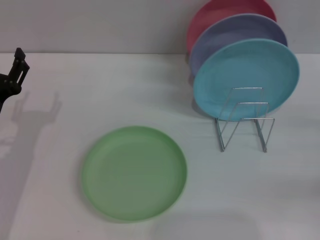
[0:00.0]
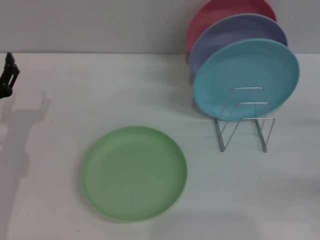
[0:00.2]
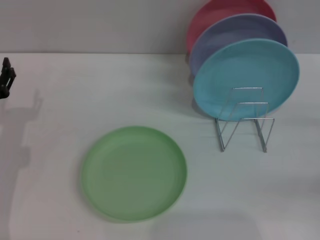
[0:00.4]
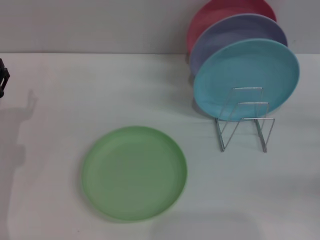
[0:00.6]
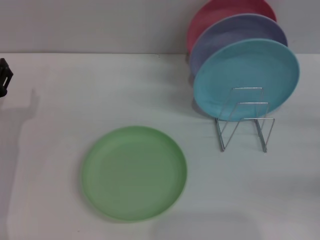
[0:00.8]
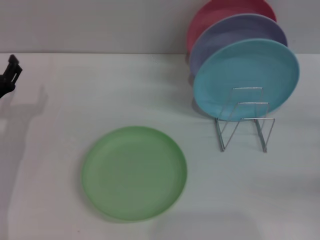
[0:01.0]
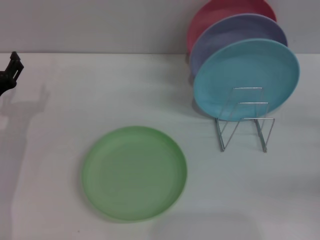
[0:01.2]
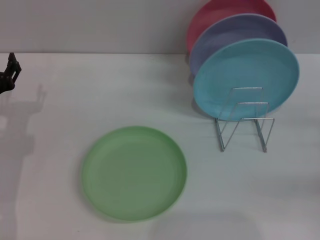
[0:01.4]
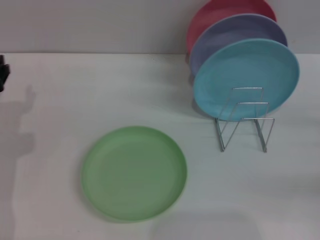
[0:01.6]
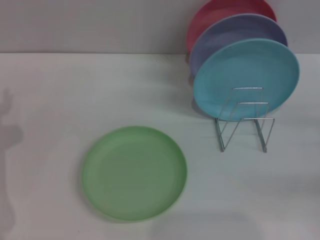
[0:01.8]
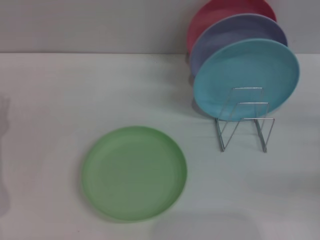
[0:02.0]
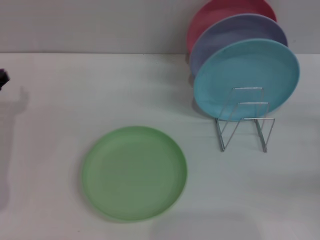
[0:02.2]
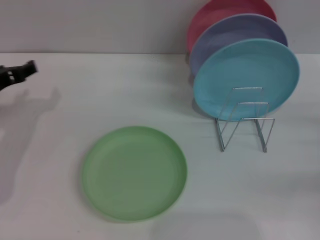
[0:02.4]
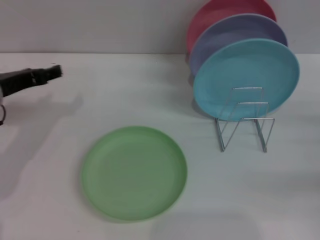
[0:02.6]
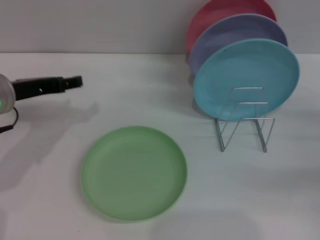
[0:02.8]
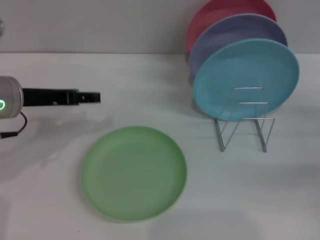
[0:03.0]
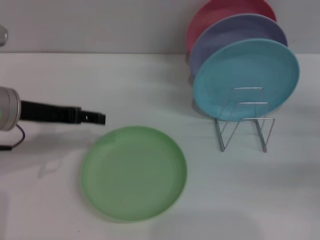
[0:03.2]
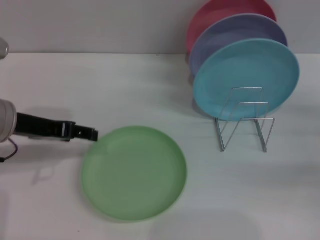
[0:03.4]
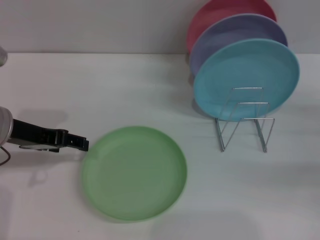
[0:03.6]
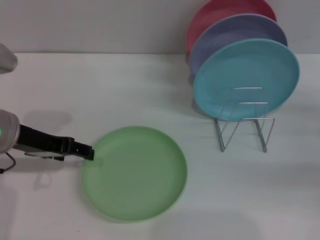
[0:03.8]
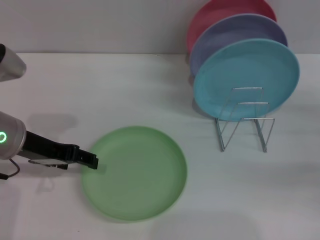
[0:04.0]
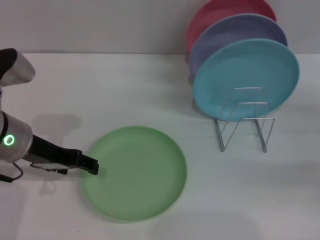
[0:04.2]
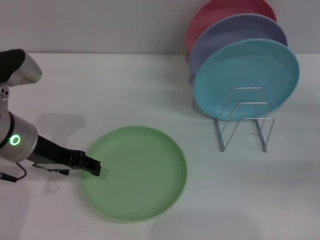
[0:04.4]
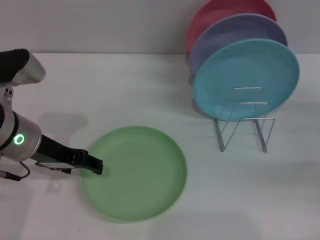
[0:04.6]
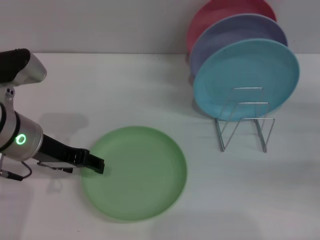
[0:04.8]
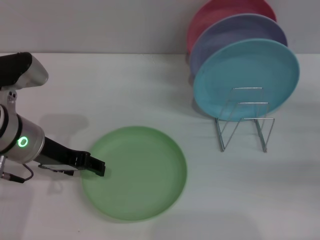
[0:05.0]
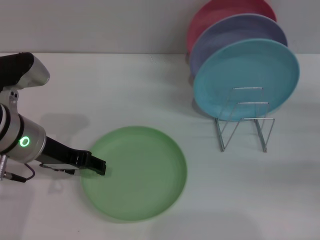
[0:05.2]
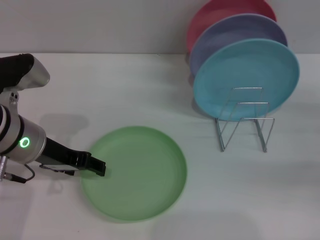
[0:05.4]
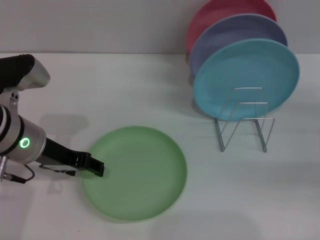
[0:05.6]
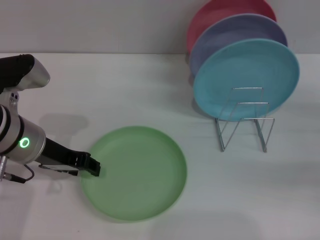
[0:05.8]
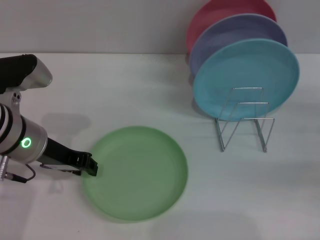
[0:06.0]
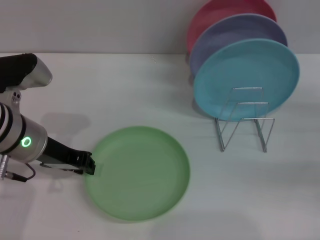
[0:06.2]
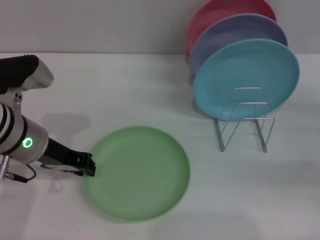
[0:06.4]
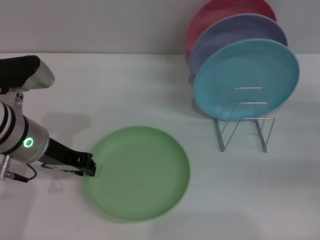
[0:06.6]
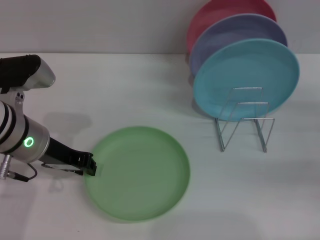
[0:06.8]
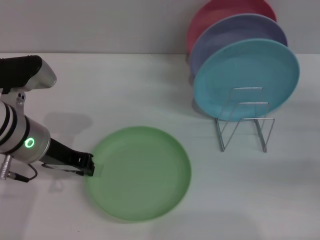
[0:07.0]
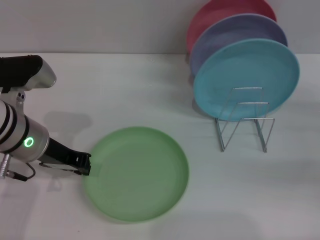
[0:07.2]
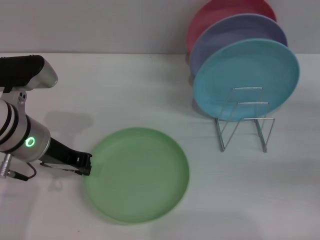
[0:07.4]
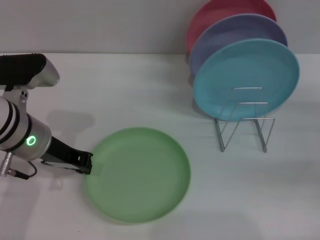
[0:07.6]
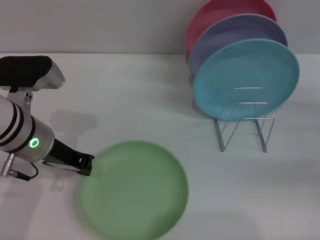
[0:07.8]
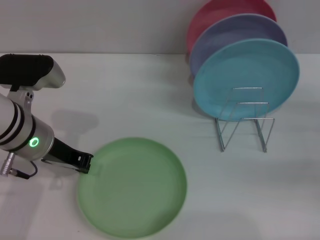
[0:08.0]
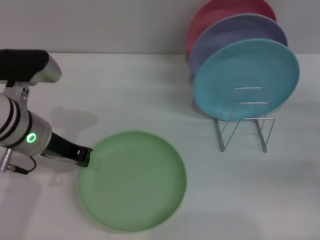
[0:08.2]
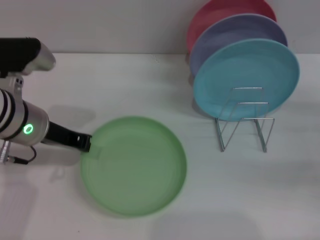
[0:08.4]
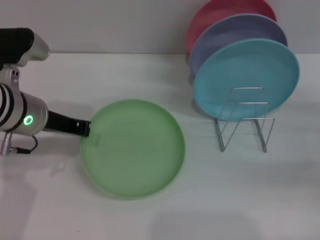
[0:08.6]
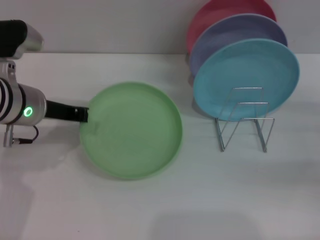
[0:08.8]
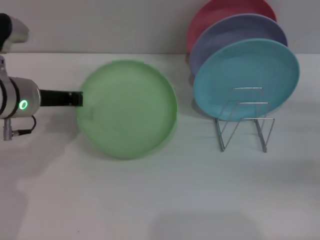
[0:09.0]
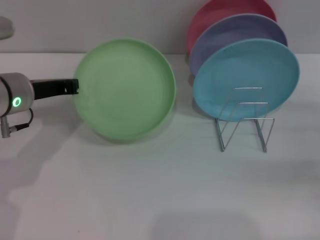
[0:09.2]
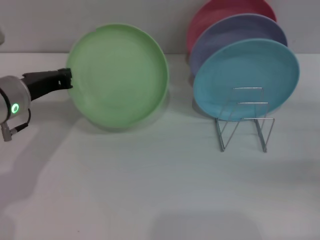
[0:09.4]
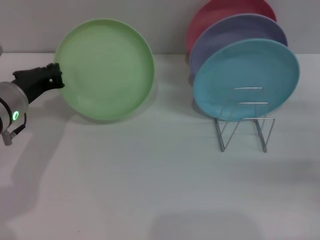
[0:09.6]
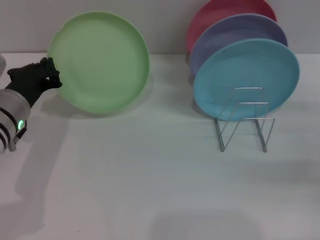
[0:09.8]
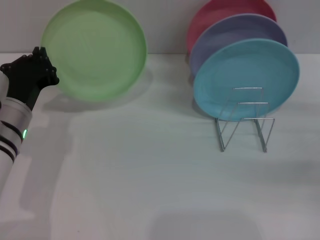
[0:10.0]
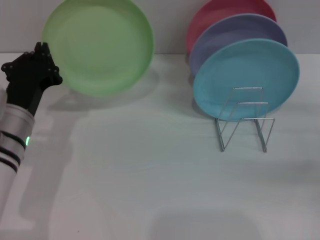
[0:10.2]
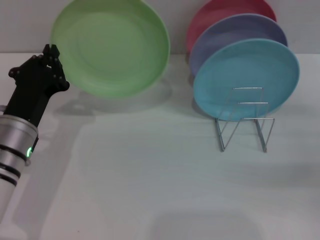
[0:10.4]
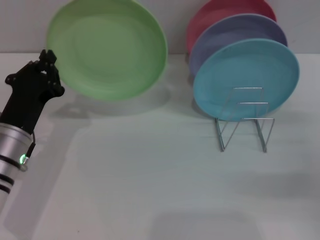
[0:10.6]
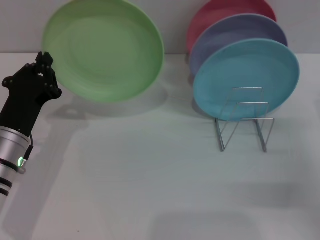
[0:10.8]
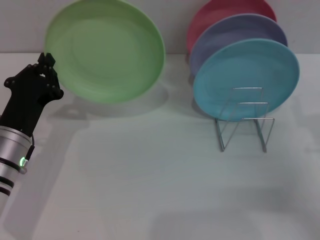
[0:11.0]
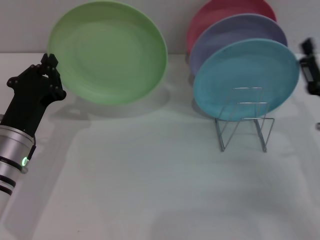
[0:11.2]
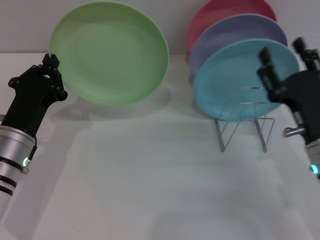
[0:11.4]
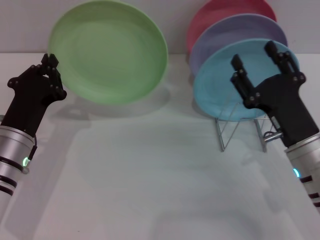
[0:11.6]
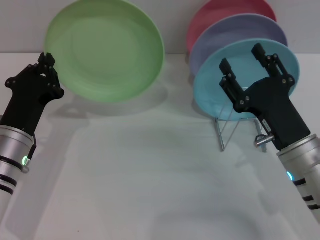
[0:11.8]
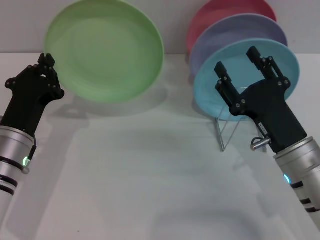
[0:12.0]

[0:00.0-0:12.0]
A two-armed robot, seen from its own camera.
Task of the whole recording: Grip the plate with one hand, pass it to the other, then set it on the shelf.
Step, 0:00.0 to 0:09.8: Pick up the plate with the left gripper.
0:01.6 to 0:03.0: The left gripper goes roughly 15 cm upward and to the right.
0:04.4 to 0:06.0: The left gripper closes.
0:06.0 to 0:07.6: The left gripper closes its fingers.
0:09.0 to 0:10.4: The left gripper travels downward and backward by roughly 10 cm.
0:10.4 to 0:12.0: The right gripper travels to the left by roughly 20 cm.

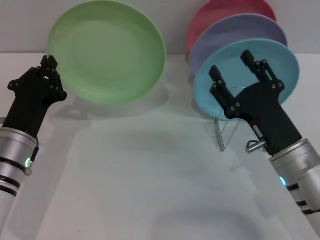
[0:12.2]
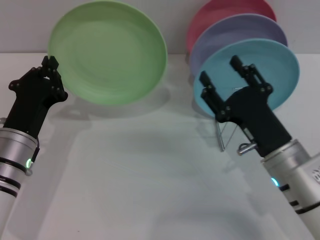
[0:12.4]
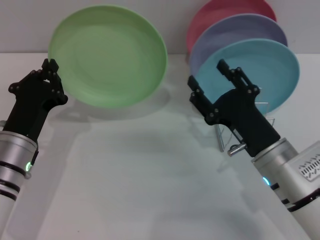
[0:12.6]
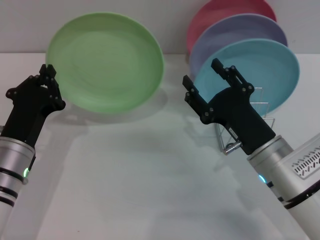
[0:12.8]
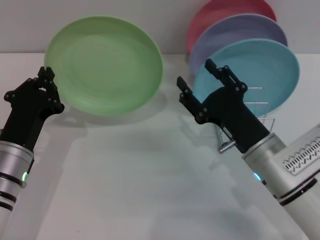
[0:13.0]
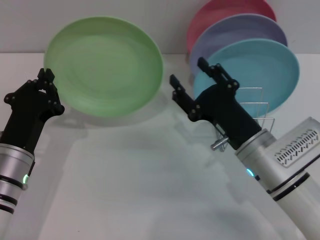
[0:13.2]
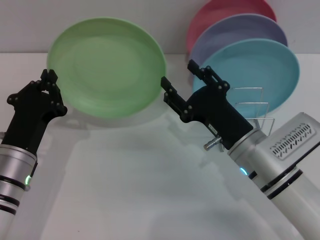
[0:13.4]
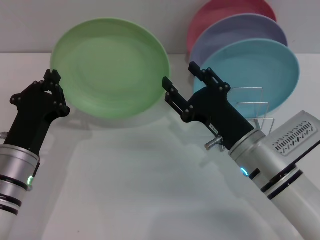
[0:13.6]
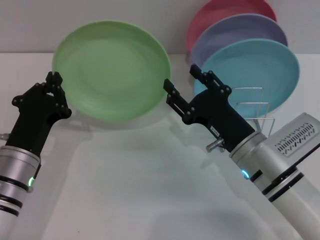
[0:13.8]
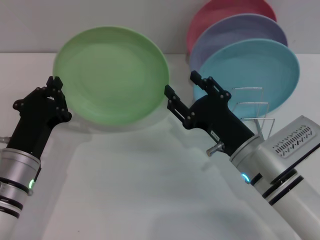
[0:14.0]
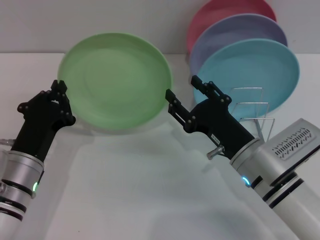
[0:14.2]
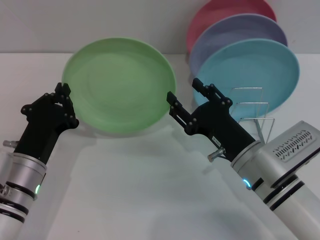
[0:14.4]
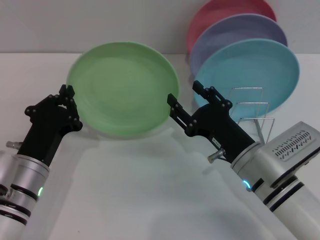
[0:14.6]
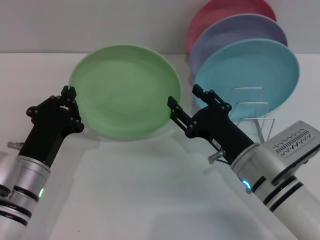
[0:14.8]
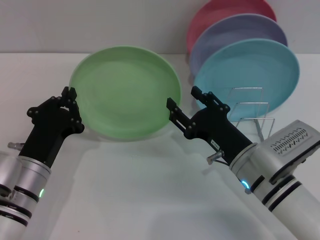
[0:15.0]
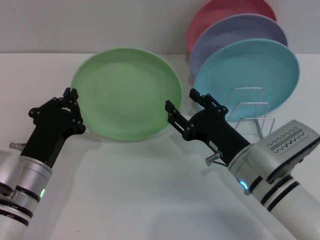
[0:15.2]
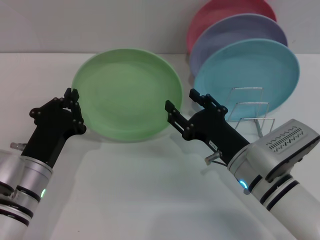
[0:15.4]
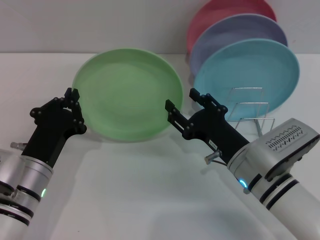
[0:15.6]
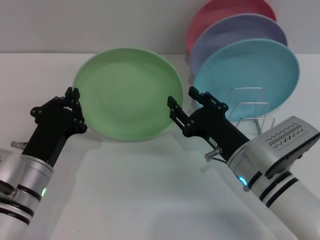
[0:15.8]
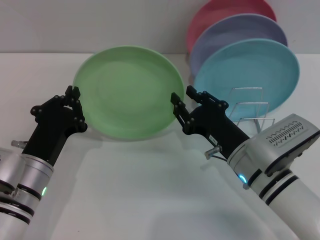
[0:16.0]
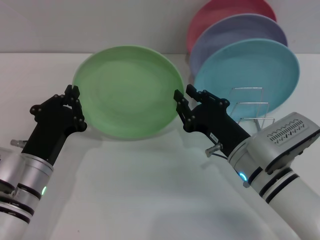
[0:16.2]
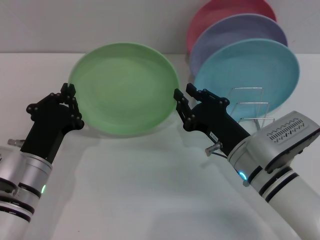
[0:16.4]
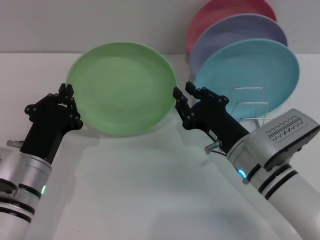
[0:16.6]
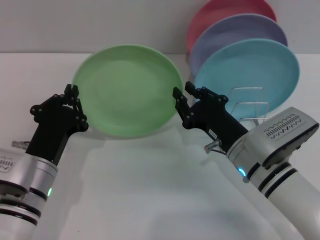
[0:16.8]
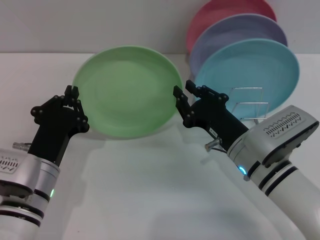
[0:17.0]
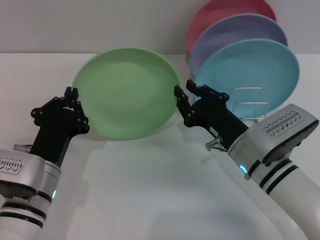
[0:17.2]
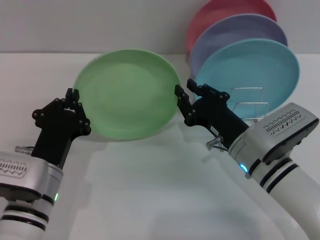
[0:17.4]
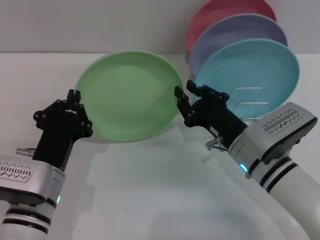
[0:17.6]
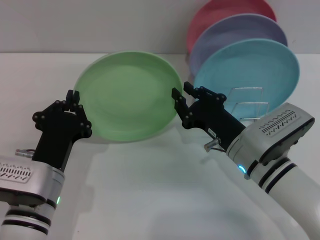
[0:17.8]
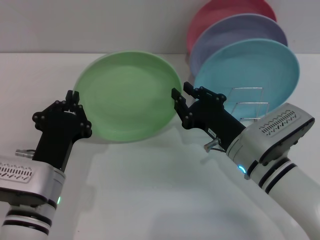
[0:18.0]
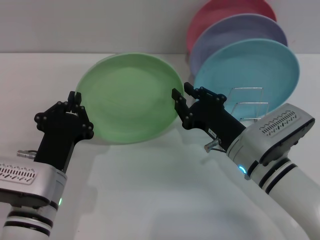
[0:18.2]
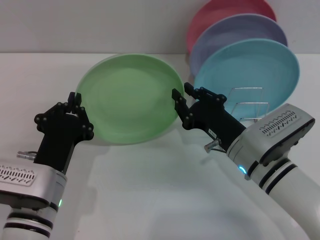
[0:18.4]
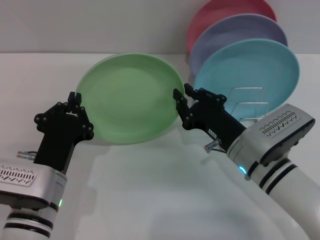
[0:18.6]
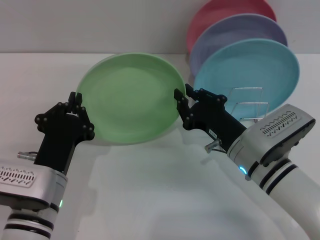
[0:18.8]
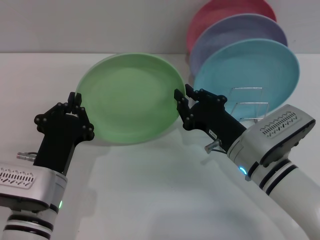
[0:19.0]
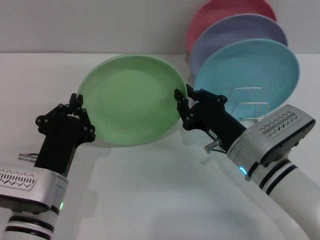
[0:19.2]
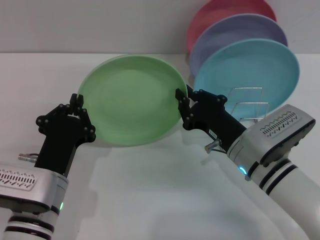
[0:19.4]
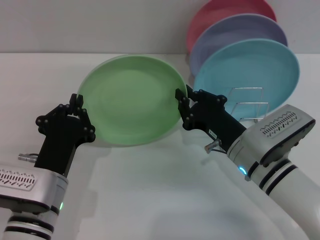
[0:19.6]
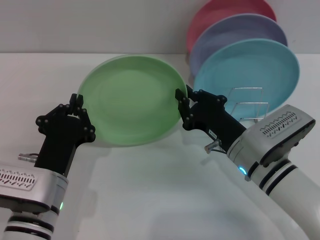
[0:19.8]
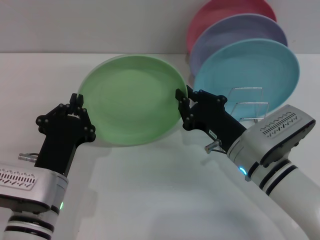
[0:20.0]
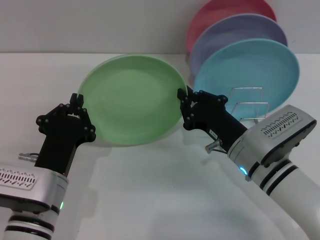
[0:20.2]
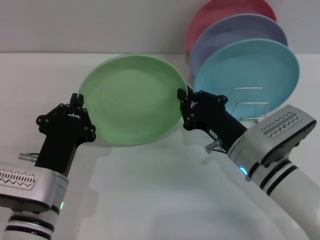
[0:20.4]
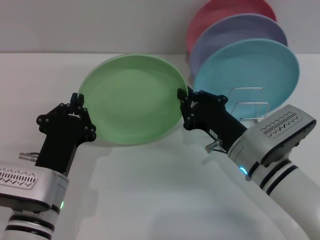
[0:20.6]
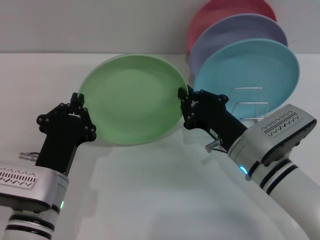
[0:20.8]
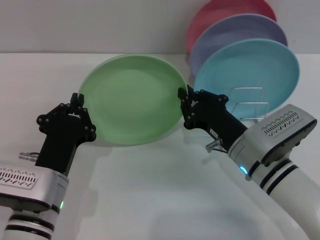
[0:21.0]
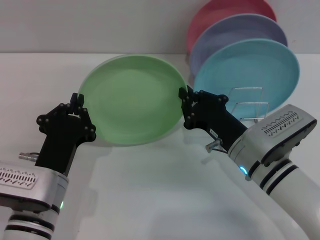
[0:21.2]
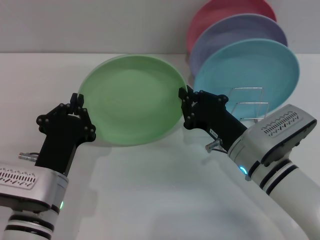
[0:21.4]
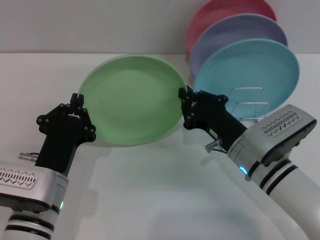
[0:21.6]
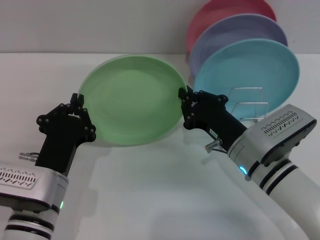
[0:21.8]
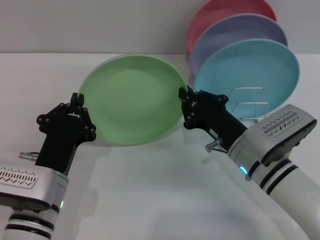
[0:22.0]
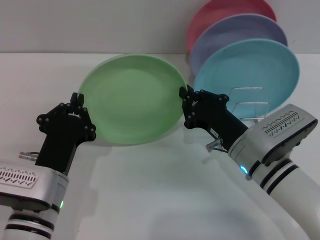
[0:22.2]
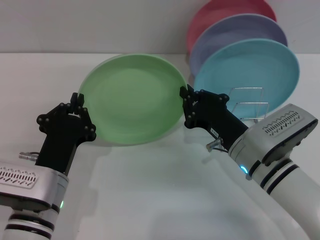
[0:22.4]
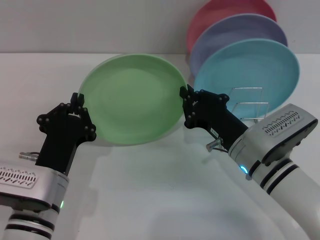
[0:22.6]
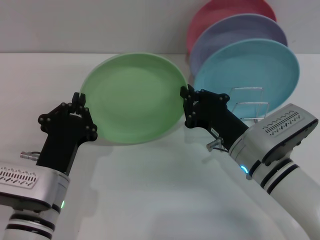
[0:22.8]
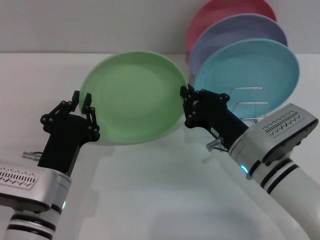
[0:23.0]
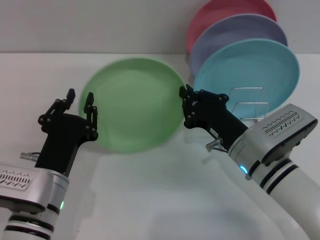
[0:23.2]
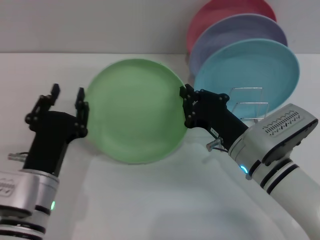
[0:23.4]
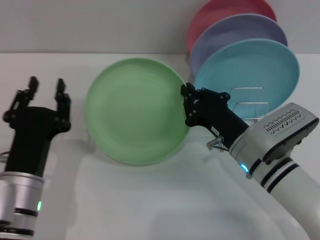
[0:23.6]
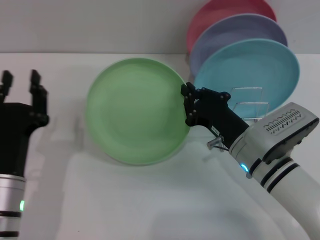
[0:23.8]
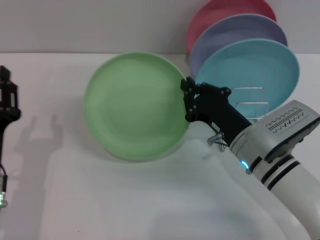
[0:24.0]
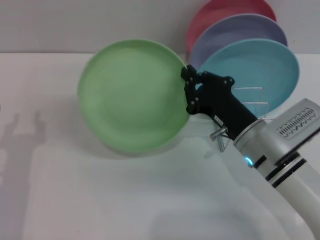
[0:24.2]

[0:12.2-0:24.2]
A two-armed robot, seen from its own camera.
Task of the whole recording: Grip the plate with one hand, pass it to the other, then set it on the shelf.
0:15.2 to 0:16.6: The right gripper closes.
0:16.6 to 0:18.2: The grippers stay close to where they were, moving slightly.
0:18.2 to 0:22.6: The two grippers keep their place.
0:22.6 to 0:24.2: The left gripper goes some 10 cm to the left, and opens up.
